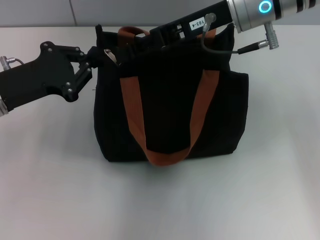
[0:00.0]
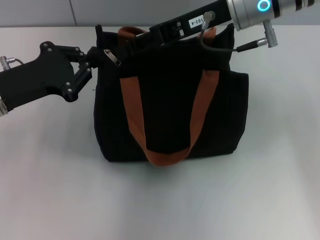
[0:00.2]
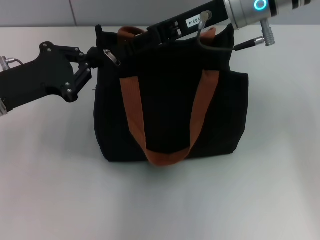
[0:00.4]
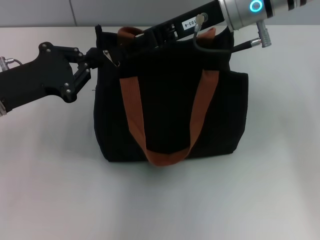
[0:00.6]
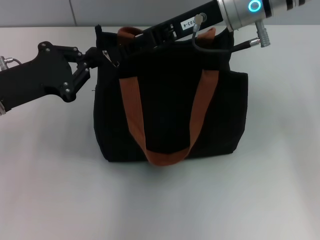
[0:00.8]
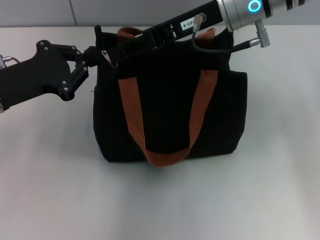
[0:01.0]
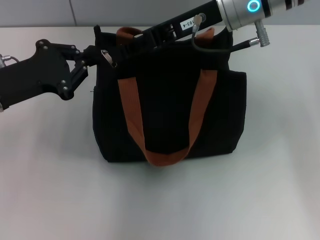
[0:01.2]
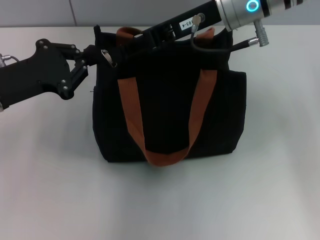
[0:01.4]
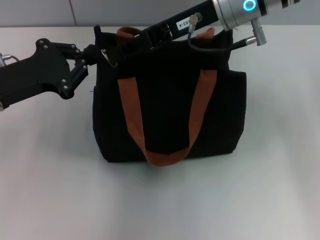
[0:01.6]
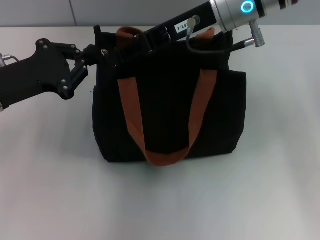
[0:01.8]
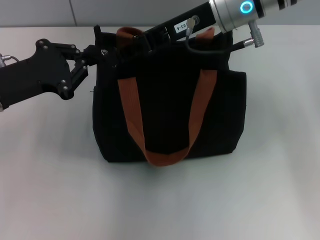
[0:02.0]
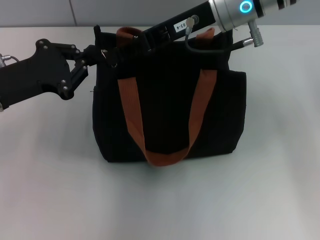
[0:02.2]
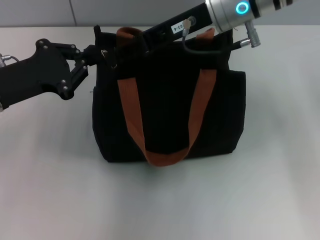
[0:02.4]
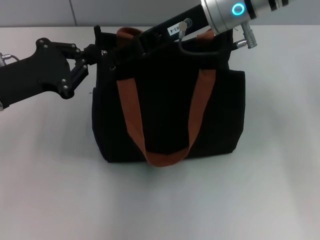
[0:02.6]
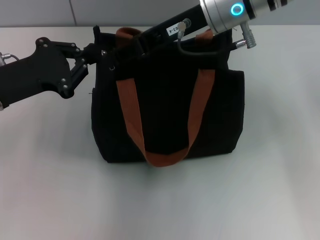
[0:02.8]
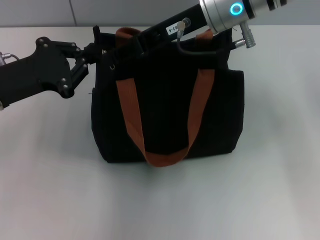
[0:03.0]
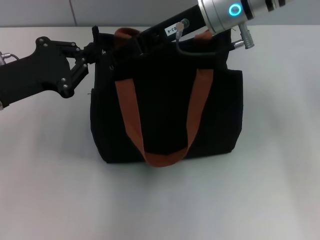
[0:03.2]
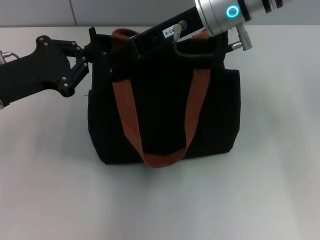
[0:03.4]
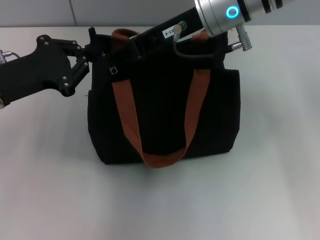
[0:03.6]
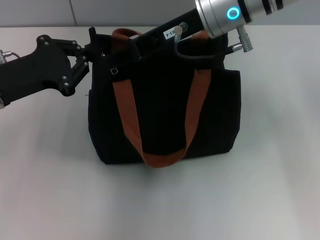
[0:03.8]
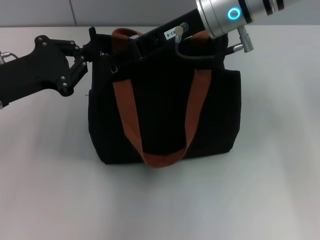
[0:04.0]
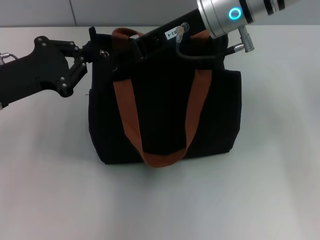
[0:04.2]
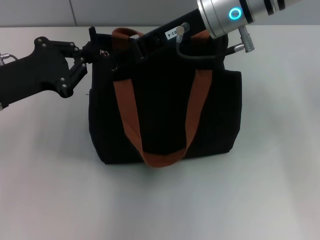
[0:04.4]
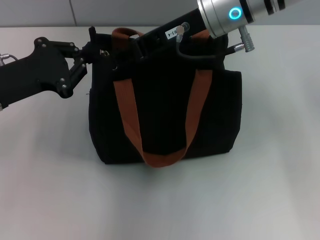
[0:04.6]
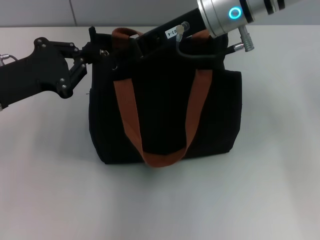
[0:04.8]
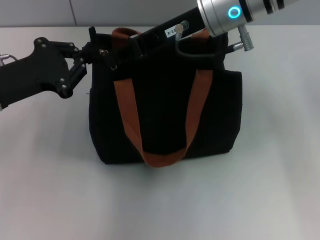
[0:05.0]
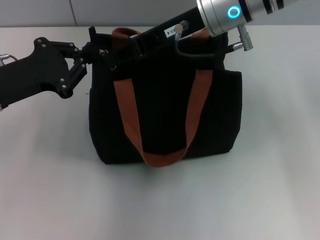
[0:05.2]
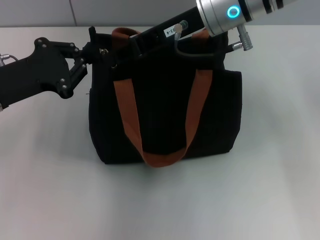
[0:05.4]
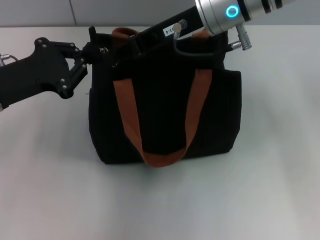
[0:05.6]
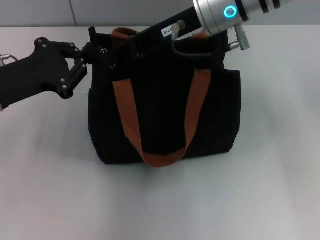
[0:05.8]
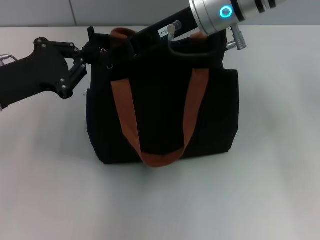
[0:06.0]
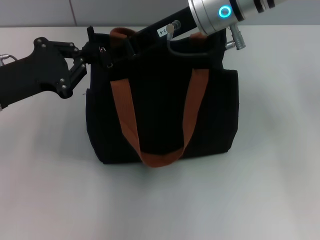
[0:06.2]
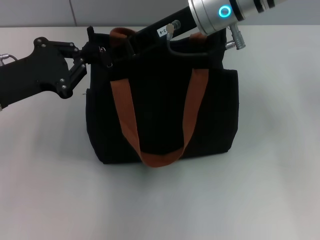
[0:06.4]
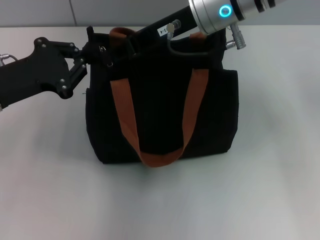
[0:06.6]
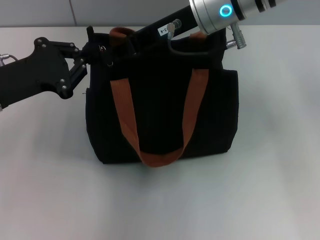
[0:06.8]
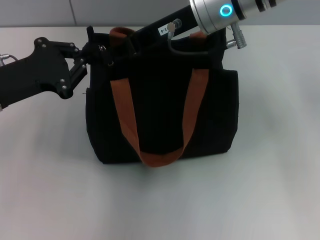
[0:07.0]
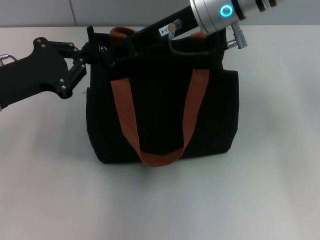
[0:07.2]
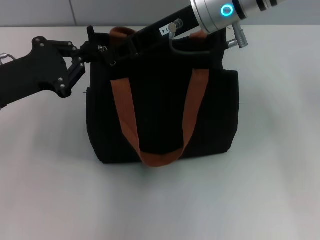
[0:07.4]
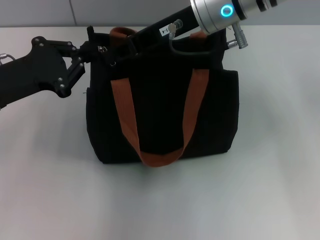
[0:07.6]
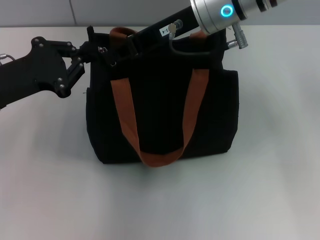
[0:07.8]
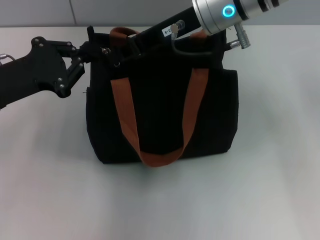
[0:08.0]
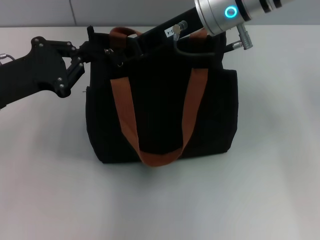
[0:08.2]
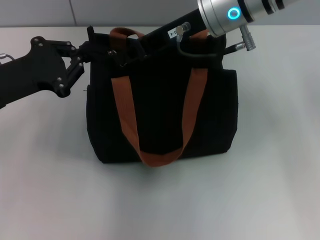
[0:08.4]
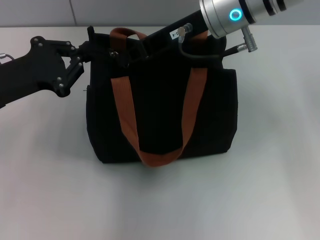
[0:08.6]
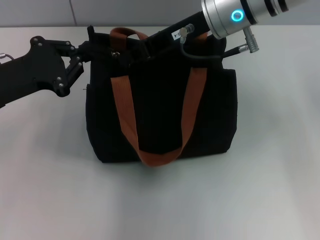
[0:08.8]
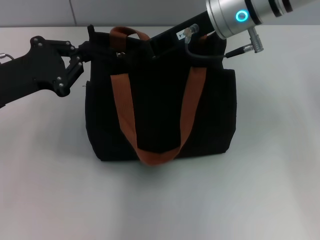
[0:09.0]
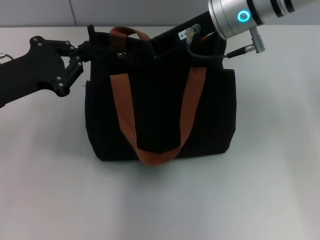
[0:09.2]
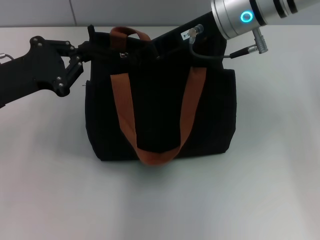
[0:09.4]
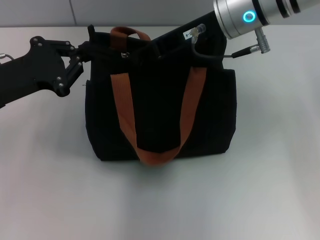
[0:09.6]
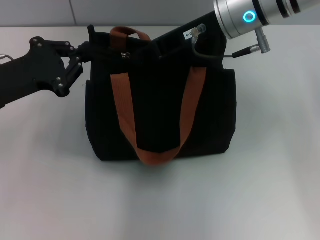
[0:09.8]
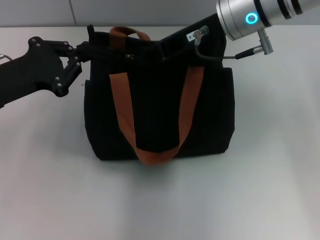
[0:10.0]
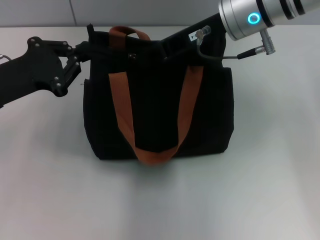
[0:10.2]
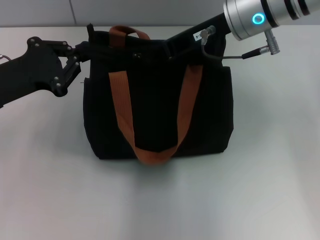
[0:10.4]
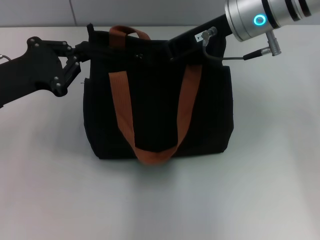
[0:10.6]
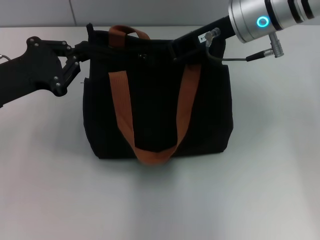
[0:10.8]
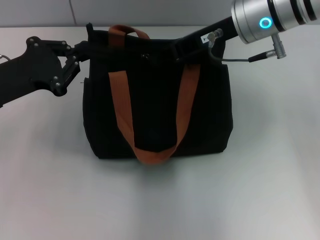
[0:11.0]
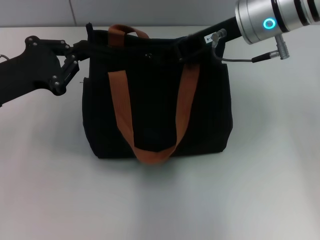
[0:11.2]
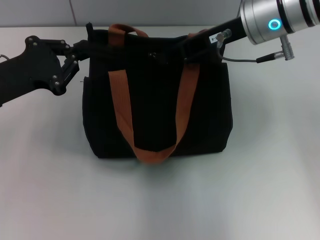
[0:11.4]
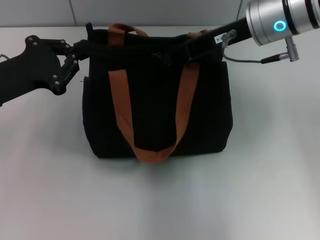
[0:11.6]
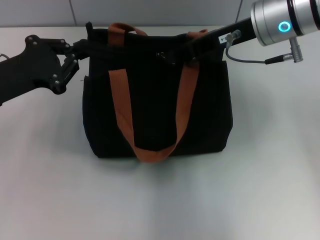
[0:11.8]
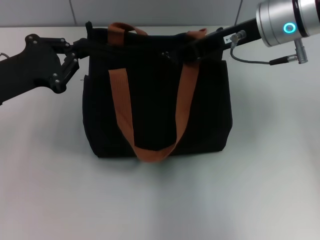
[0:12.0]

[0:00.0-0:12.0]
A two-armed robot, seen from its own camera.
0:00.0 to 0:01.6: The grippers move only a little.
0:01.6 to 0:03.0: Neither gripper changes place.
0:03.0 to 0:07.6: The two grippers keep their place.
0:07.6 to 0:10.4: The grippers stay close to where they were, moving slightly.
0:10.4 to 0:12.0: The grippers stay close to where they were, moving slightly.

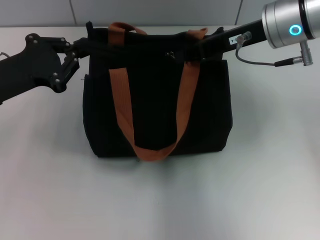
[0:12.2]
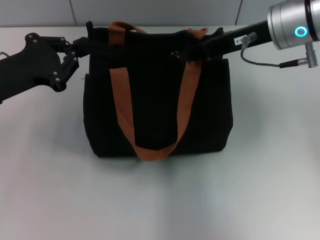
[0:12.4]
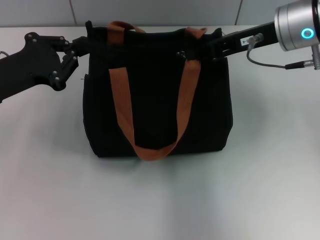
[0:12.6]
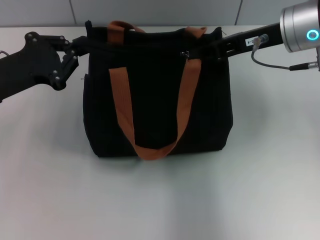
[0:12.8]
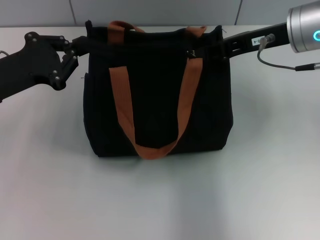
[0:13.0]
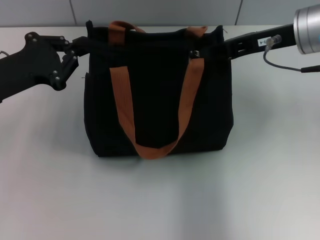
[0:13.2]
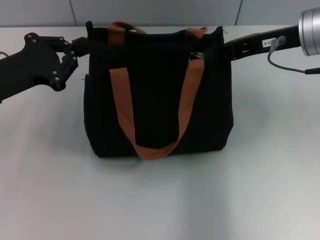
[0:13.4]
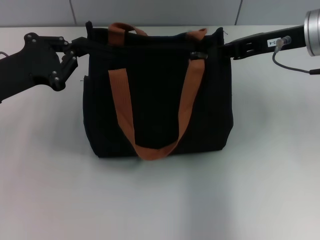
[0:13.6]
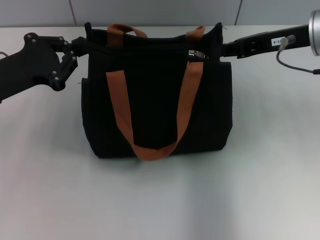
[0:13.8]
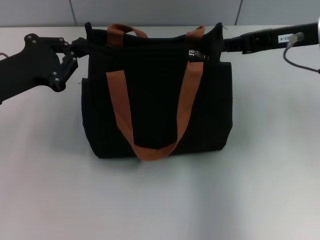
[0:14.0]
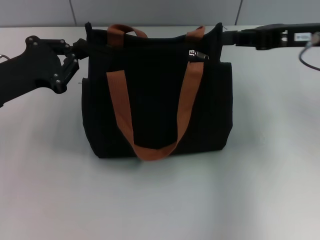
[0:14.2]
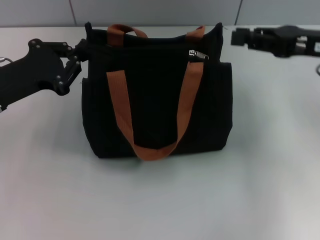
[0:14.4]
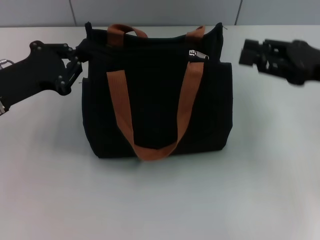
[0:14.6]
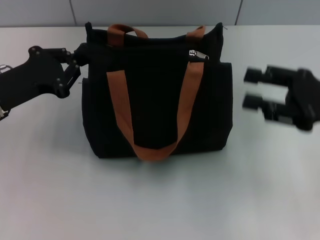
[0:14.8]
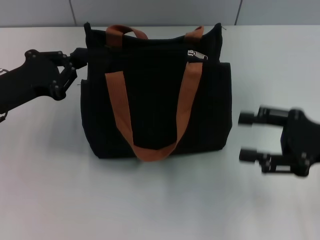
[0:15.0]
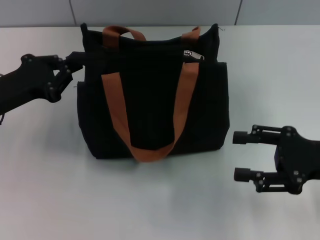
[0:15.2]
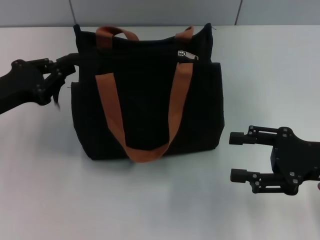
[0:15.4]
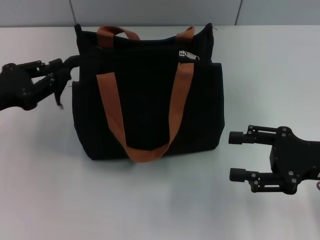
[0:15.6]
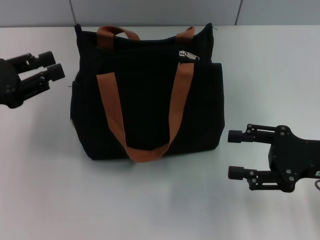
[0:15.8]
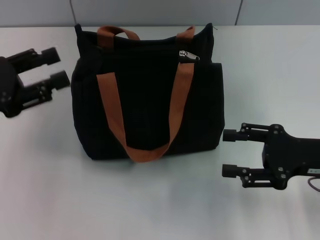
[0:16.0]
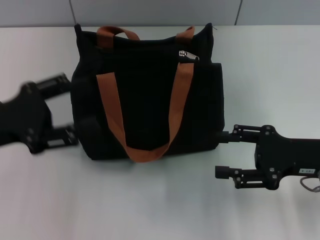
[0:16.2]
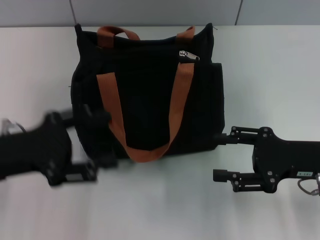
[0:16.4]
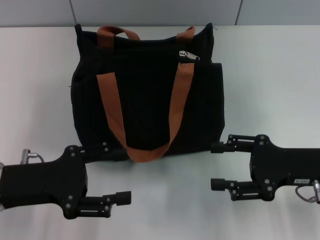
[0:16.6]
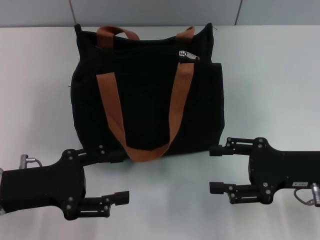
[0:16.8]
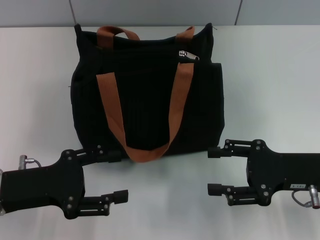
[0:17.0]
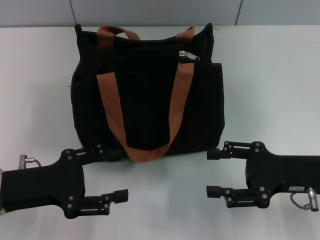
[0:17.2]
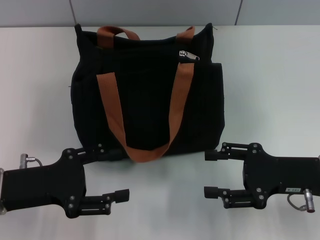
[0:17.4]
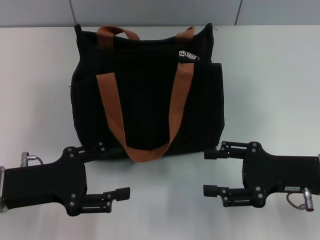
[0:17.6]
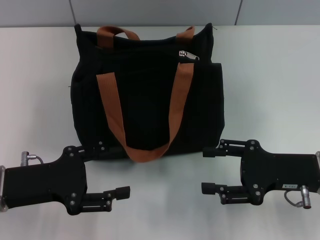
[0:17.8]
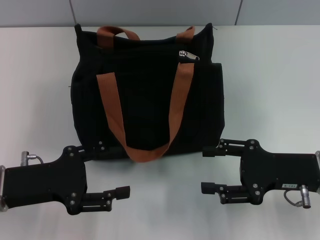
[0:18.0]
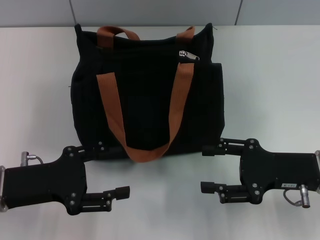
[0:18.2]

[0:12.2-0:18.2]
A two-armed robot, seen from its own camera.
Step, 0:14.2 to 0:16.0: Grab the zipper with your left hand.
0:12.2 to 0:13.8: The right gripper moves to the right, some 5 cm.
0:13.8 to 0:15.2: The right gripper moves backward, downward and to the right, approximately 20 cm, and opens its fingers.
0:15.2 to 0:16.6: The left gripper moves backward, roughly 10 cm, and opens.
0:16.6 to 0:18.2: The grippers make only small movements.

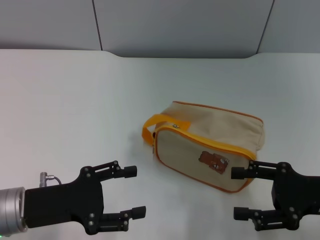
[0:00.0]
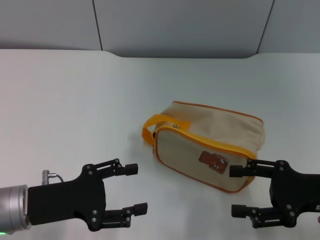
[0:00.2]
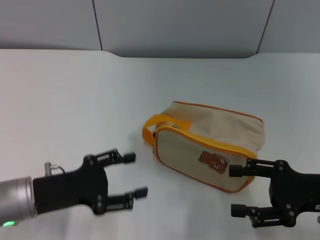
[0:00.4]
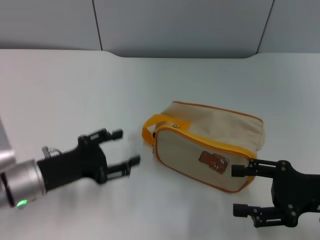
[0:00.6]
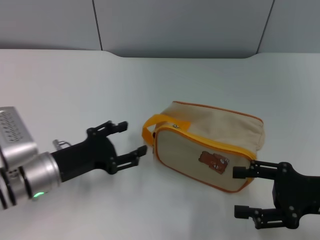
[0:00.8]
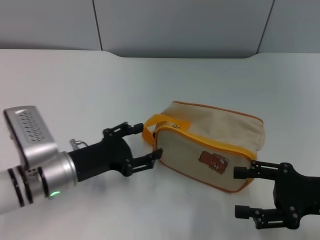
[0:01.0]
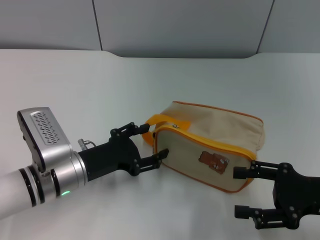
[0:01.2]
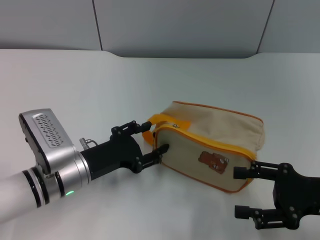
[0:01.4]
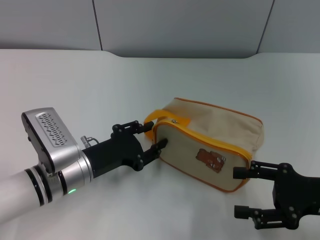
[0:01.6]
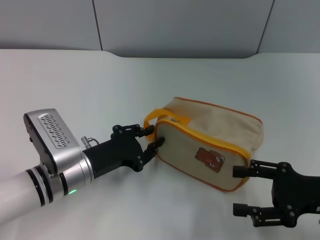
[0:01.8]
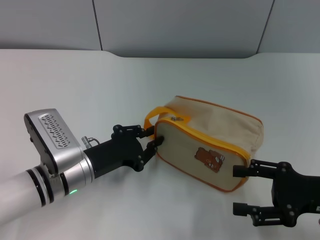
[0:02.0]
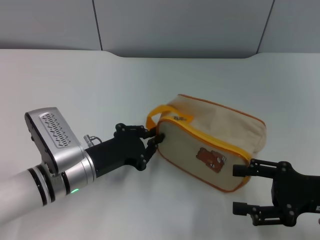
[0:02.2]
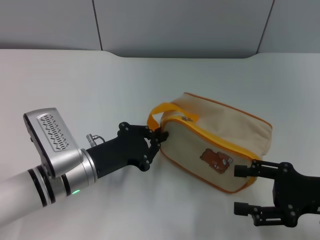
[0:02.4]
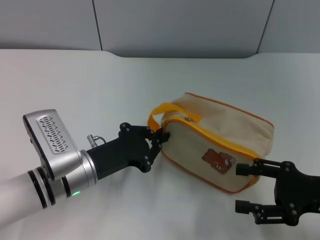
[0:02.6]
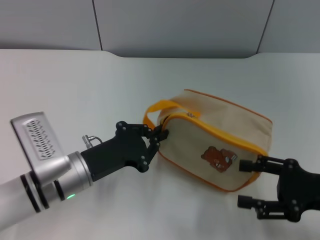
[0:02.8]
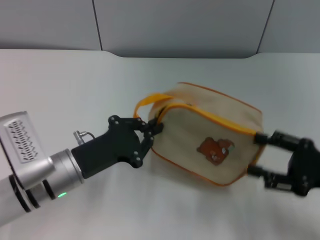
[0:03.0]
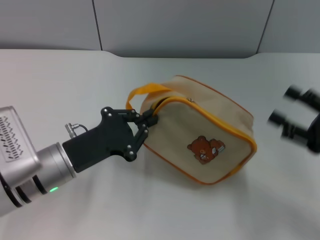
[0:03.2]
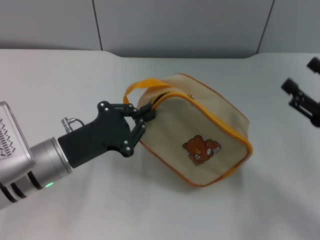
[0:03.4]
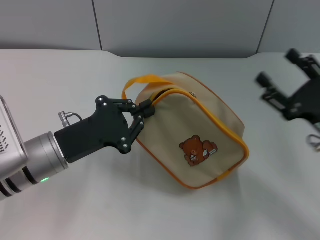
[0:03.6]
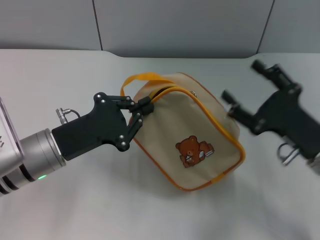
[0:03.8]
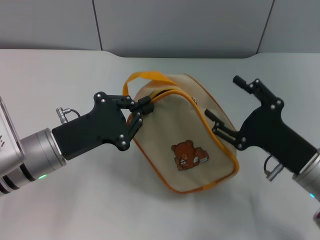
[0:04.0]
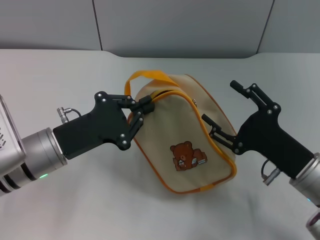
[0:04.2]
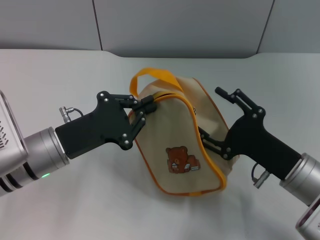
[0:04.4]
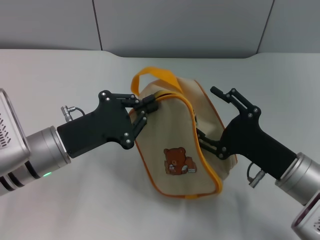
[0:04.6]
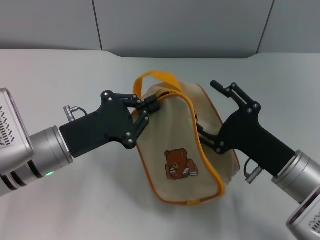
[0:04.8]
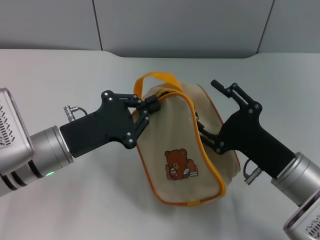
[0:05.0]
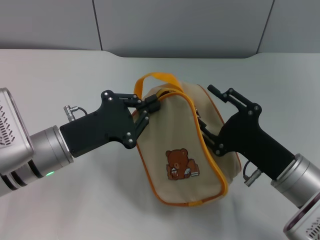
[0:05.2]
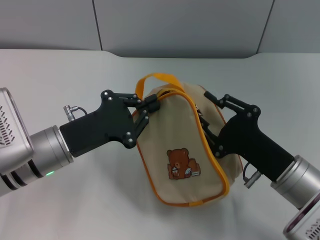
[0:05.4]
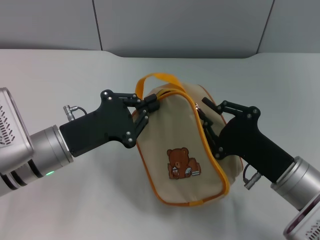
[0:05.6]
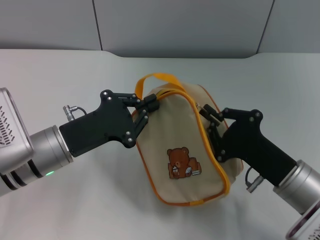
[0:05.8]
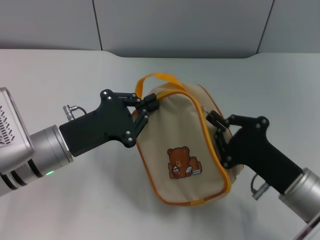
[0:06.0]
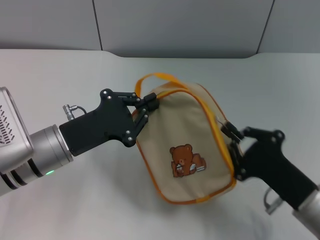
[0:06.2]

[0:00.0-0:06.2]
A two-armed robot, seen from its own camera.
Step, 0:00.0 to 0:03.2: Pick up the bag with left gripper.
0:00.0 to 0:01.6: The left gripper moves to the right and forward, some 10 cm.
0:01.6 to 0:03.2: The left gripper closes up.
0:03.2 to 0:04.6: The right gripper is displaced to the left by approximately 10 cm.
0:04.6 to 0:06.2: The right gripper changes place by approximately 5 cm, and closes its fingers.
